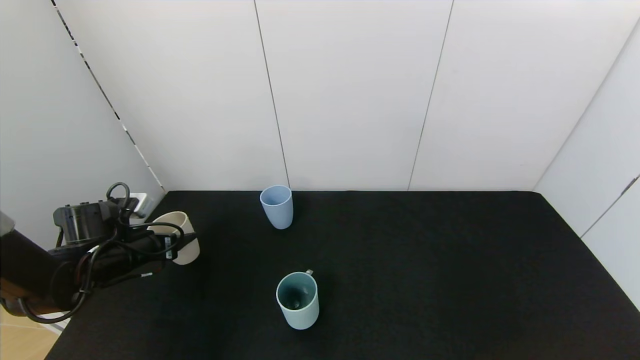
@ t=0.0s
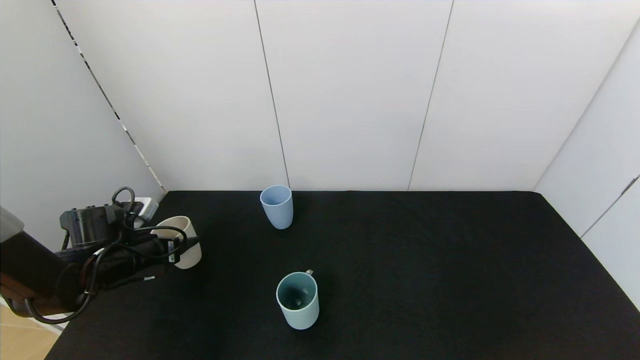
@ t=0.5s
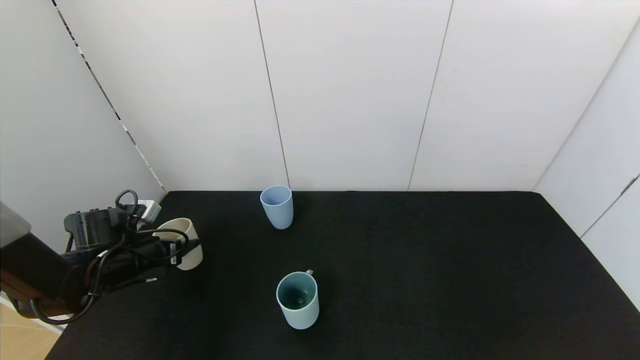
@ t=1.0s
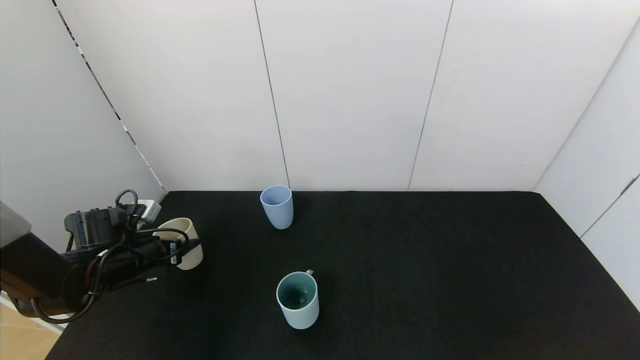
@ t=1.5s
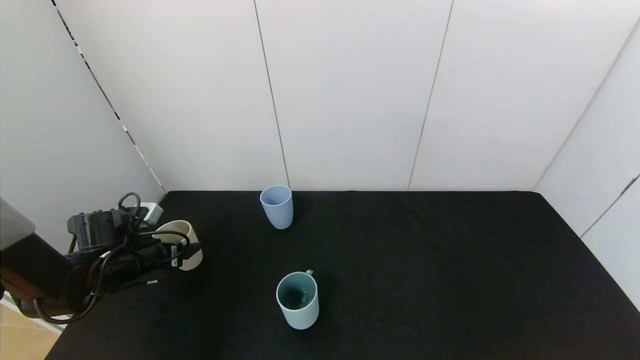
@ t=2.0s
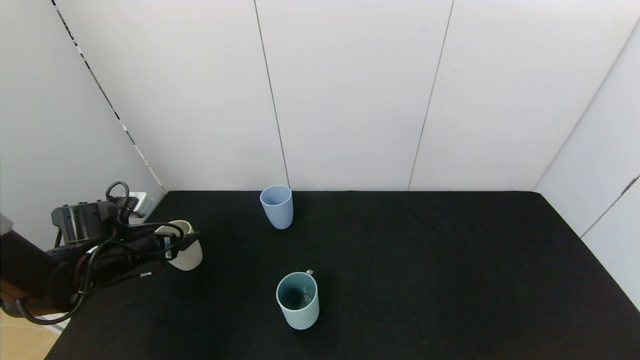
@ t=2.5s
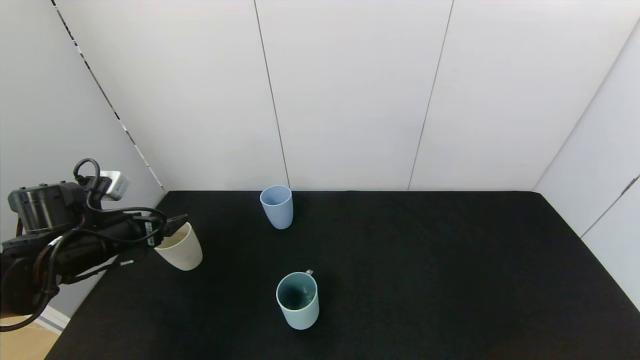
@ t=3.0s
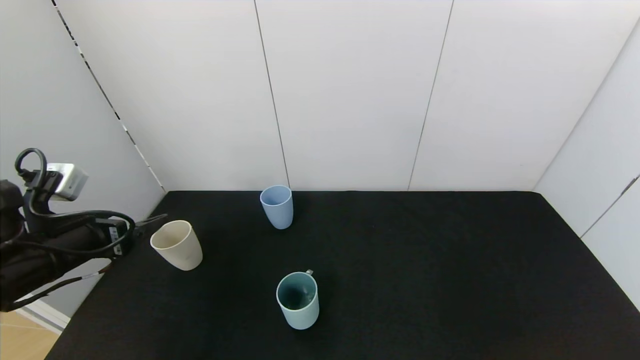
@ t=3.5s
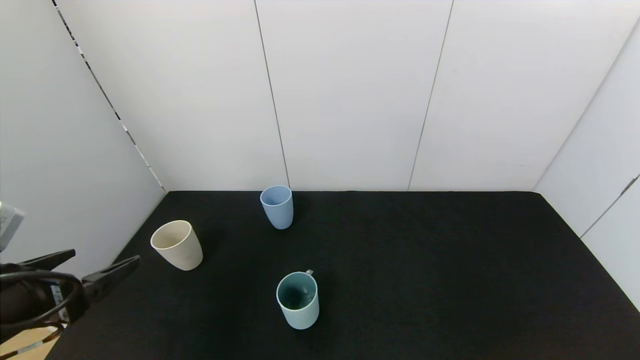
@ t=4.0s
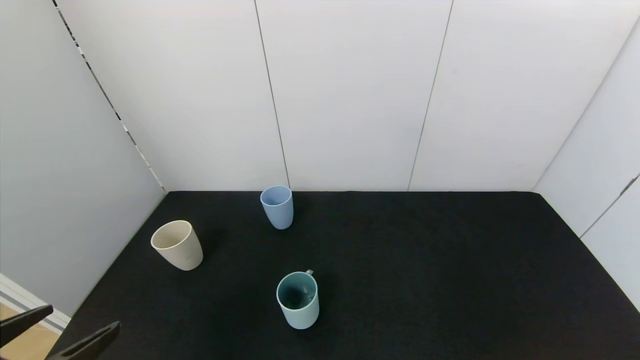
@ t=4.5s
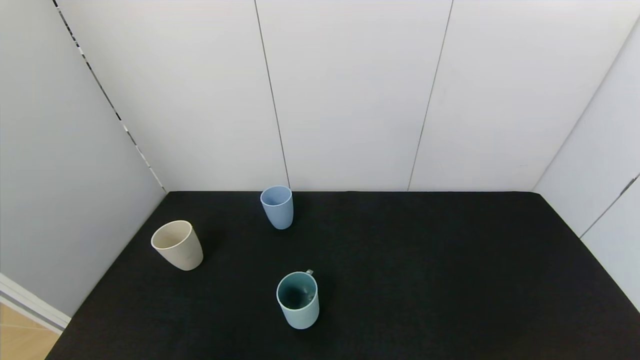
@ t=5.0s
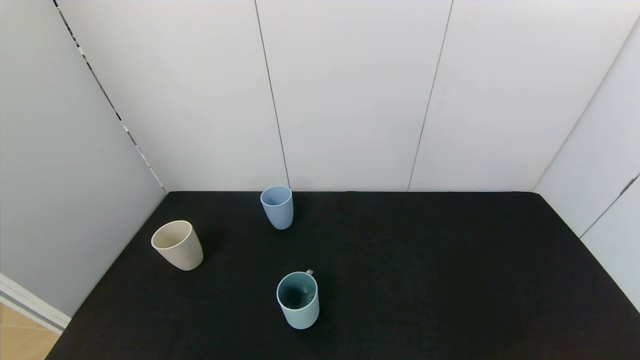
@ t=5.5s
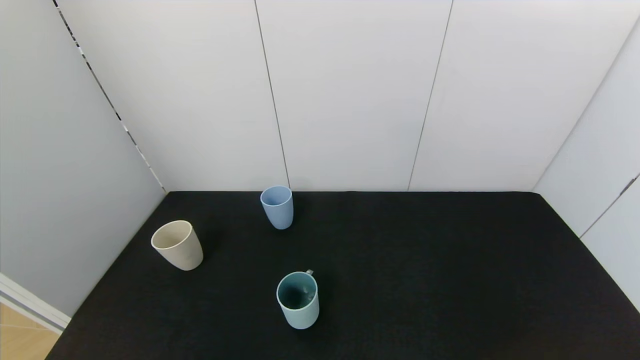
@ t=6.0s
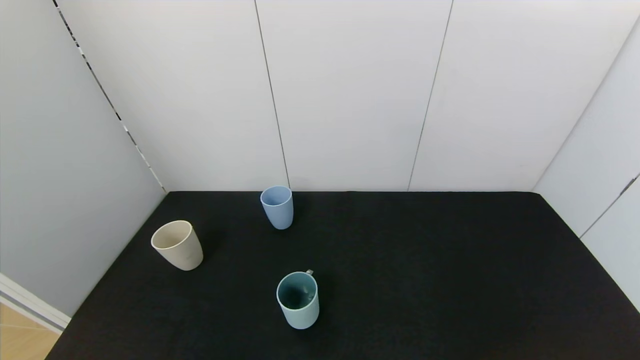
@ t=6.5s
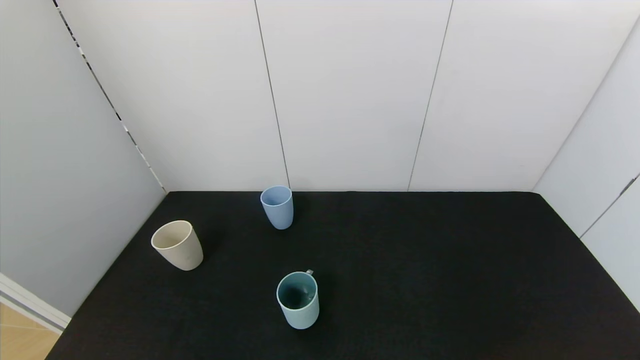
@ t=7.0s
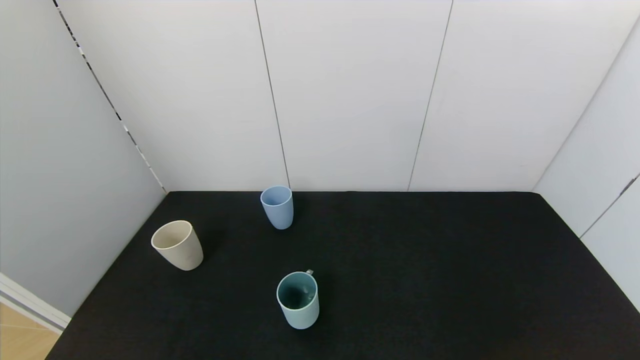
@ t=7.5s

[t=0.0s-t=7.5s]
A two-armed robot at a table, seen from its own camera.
Task of the whole recording: use the gripper to pour the water into the other two cups on black table.
Step, t=0.0s to t=4.0s: Place the white cup with the left gripper.
t=0.0s to t=2.0s: The left gripper opens up.
t=2.0s to t=4.0s: The left gripper shifts about 25 cm backward and upward, and opens up.
t=4.0s to t=5.5s: The left gripper goes roughly 15 cm backward.
